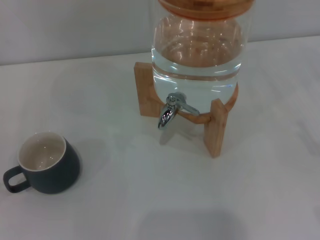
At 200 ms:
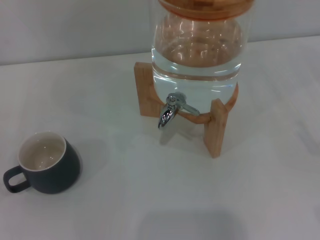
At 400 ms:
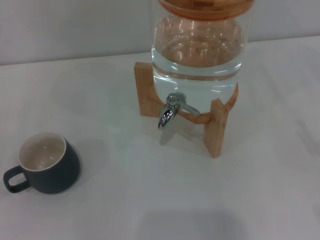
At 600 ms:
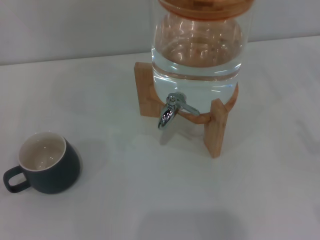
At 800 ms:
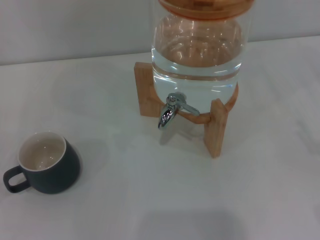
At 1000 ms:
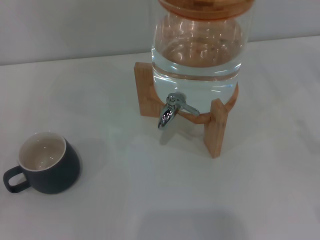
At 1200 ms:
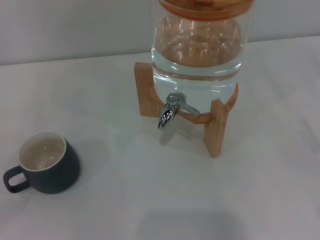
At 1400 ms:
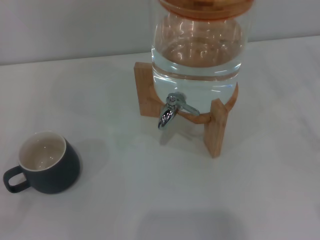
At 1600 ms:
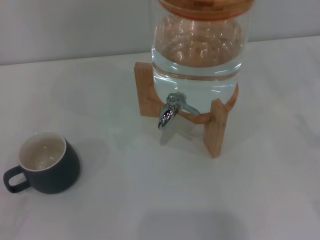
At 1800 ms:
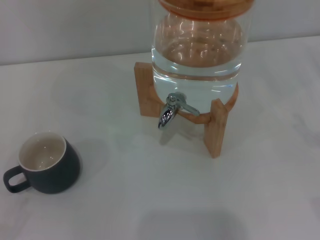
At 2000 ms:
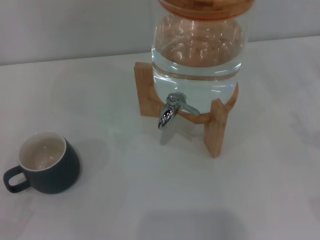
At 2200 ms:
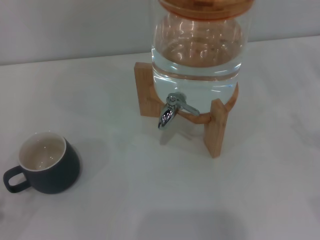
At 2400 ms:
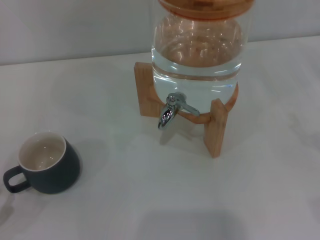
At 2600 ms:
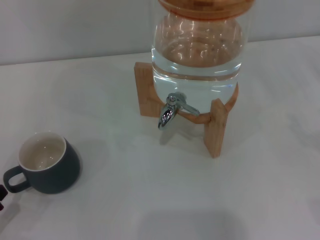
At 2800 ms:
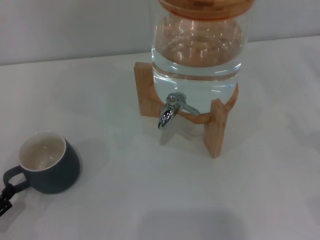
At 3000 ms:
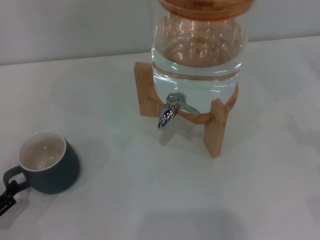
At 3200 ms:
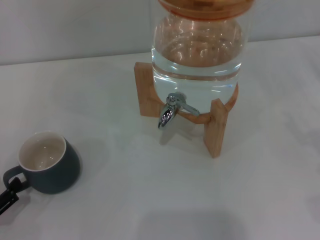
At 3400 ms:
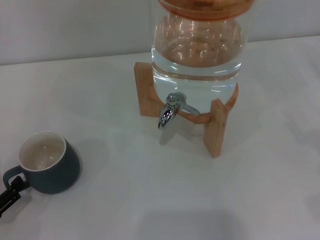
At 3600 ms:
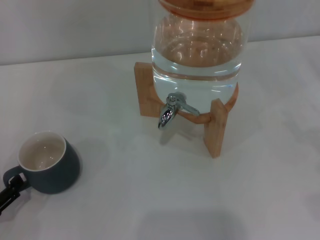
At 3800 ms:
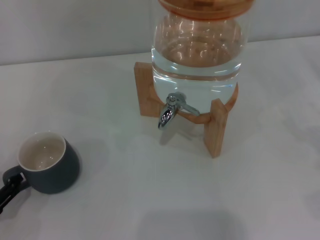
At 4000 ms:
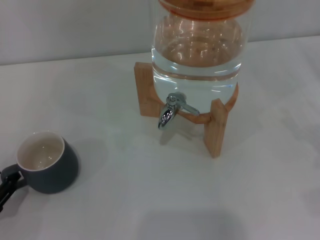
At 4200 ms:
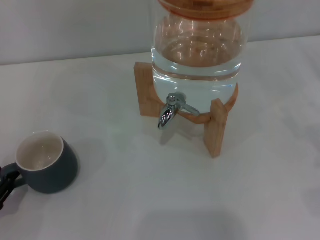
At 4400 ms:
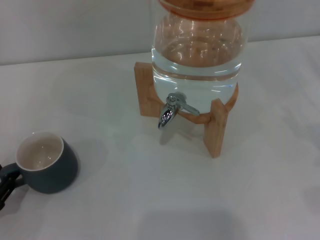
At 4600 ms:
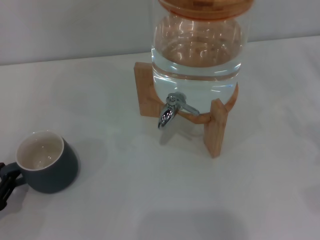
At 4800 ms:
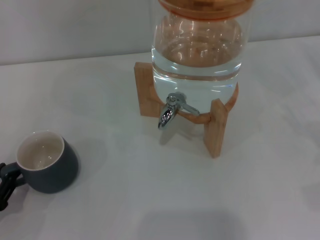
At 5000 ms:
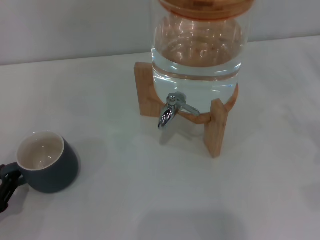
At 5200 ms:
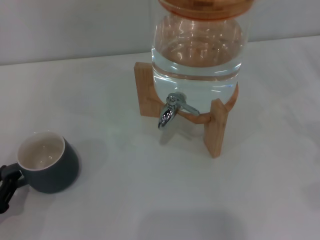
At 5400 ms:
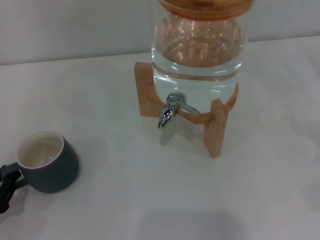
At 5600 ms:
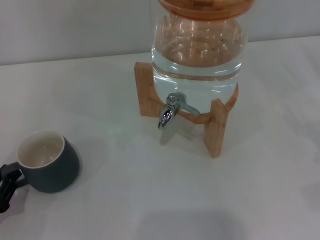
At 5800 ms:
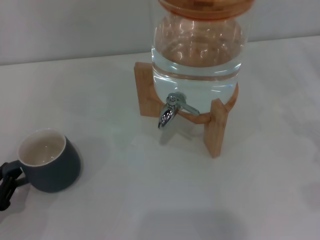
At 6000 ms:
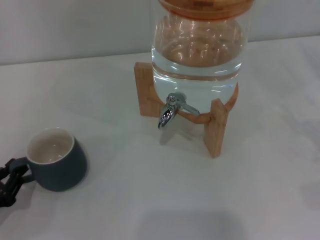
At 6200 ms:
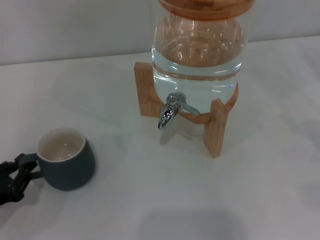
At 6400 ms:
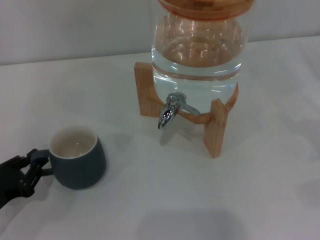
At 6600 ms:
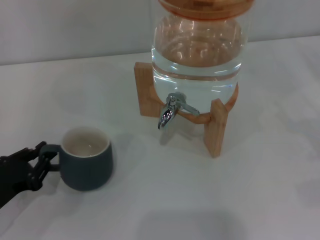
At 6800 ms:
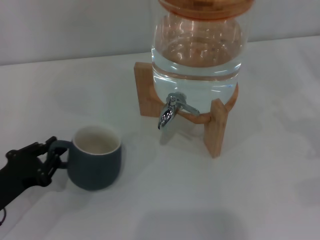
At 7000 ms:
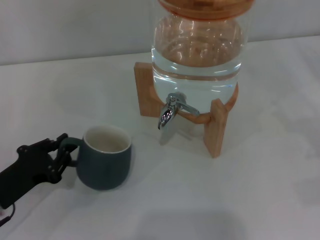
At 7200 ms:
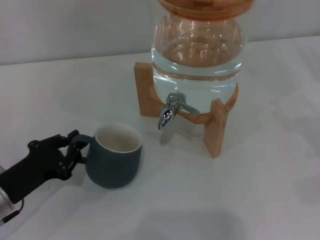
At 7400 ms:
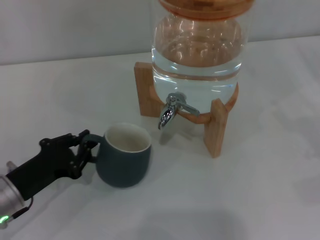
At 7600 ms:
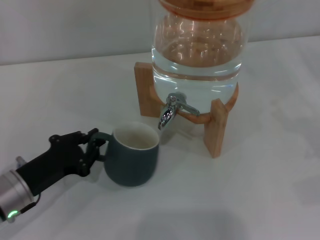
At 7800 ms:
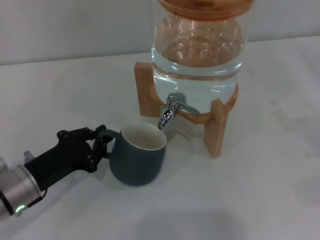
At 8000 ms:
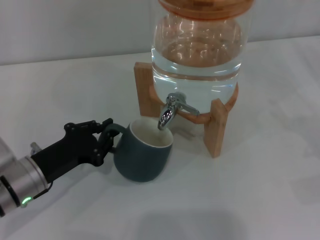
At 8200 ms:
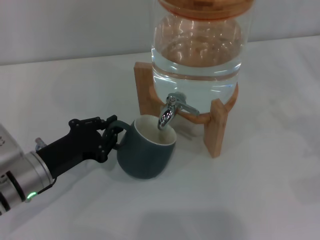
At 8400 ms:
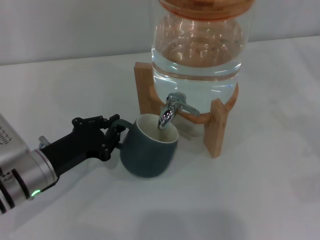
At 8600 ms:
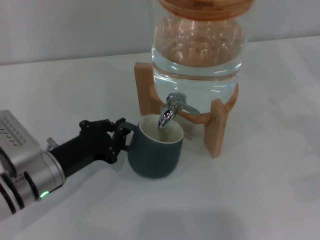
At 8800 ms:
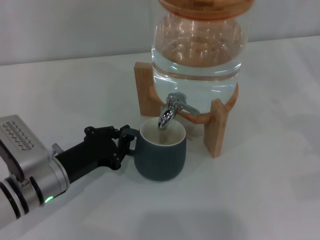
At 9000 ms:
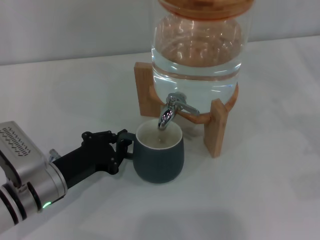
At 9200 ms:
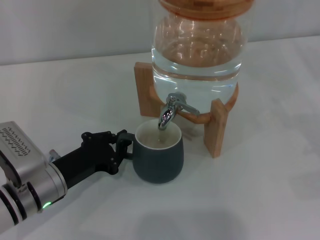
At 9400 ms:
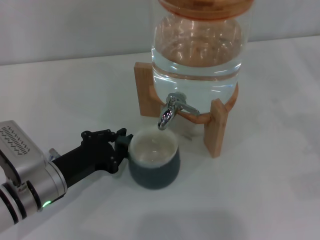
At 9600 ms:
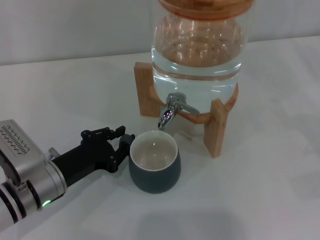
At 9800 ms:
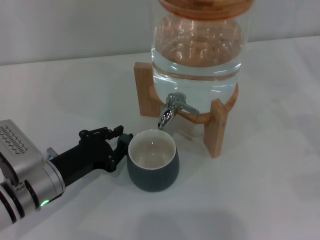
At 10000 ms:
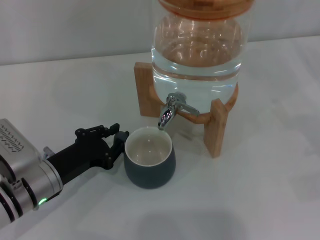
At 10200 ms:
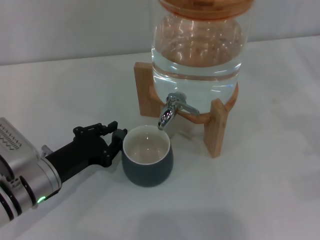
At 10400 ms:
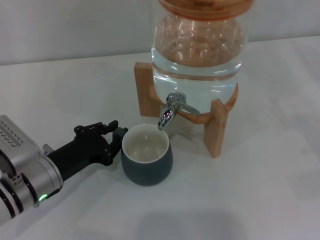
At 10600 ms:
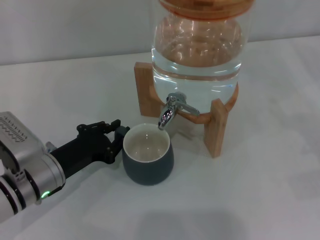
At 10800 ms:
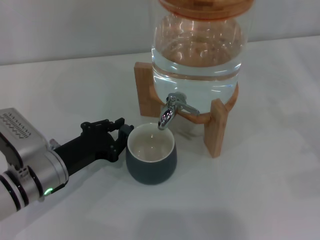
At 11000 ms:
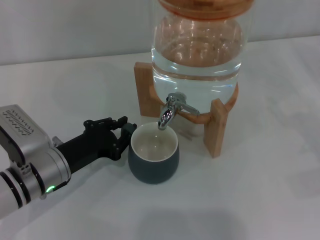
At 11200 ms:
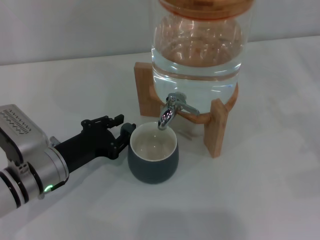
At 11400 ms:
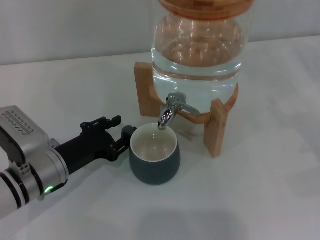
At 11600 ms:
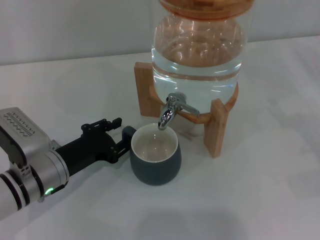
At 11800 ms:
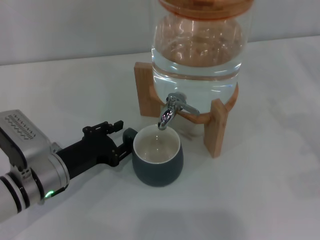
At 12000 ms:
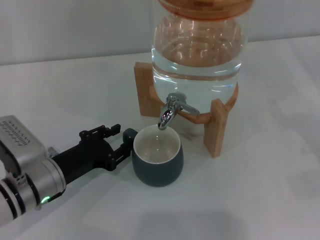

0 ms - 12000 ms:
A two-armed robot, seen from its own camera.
Task of the whole recording: the left gripper pick up the black cup and place it horizontally under the faucet, the right gripper turn on the faucet to fill the cup, and then turn off the faucet.
1600 ms - 3000 ms: The left gripper travels forward and to the right by some 10 cm.
3000 ms - 4400 ms: The left gripper closes.
4400 ms - 6000 ms: The grippers make only small movements.
6000 ms - 7600 ms: The left gripper heads to the right and forward, covering some 10 cm.
7600 ms - 9000 ms: There are only small adjustments of the grippers.
9000 ms - 10400 ms: Both grippers stay about where they are.
10400 ms - 12000 ms: The grippers make only small movements.

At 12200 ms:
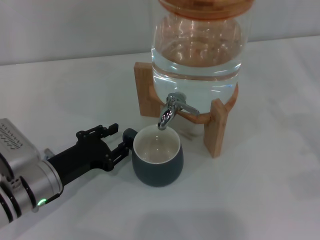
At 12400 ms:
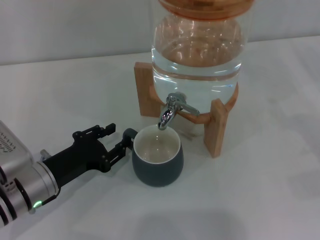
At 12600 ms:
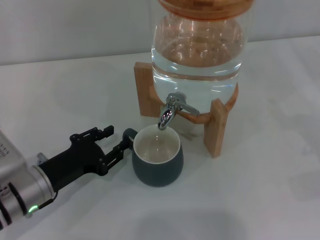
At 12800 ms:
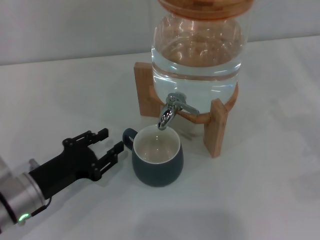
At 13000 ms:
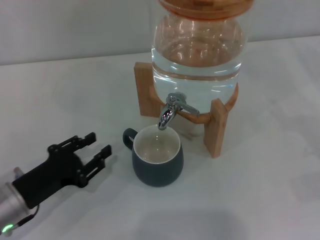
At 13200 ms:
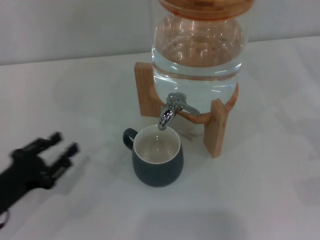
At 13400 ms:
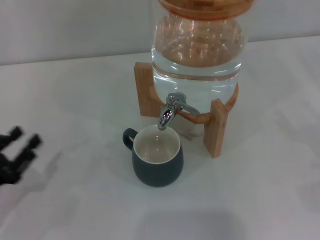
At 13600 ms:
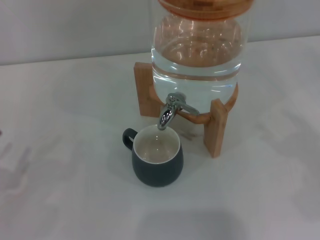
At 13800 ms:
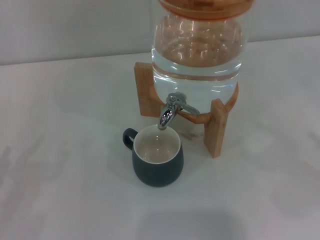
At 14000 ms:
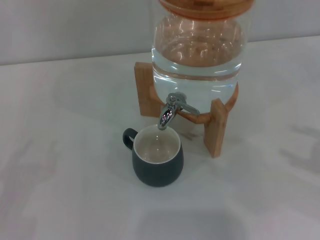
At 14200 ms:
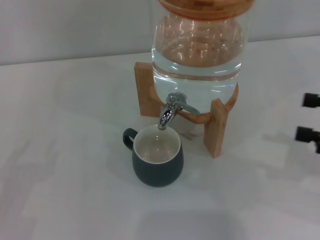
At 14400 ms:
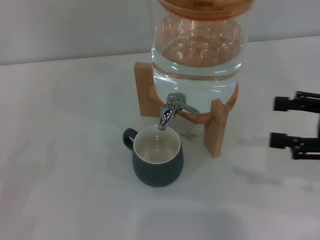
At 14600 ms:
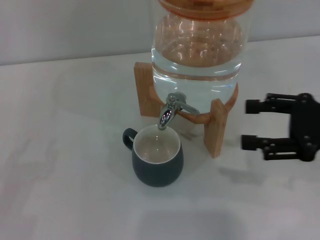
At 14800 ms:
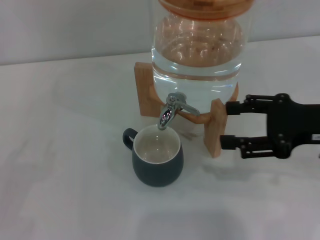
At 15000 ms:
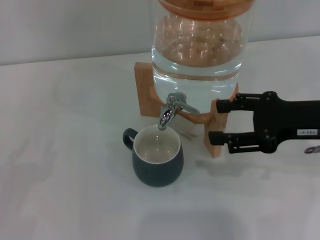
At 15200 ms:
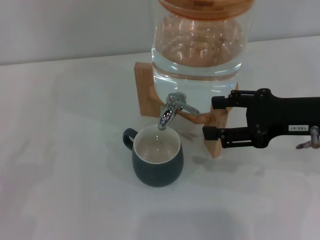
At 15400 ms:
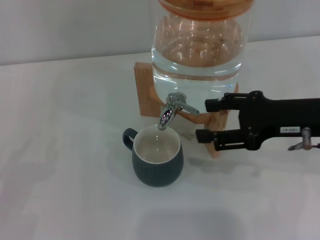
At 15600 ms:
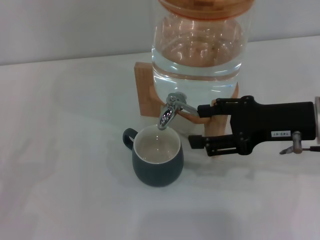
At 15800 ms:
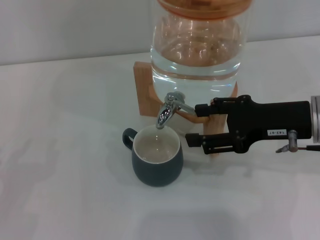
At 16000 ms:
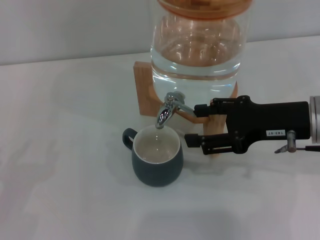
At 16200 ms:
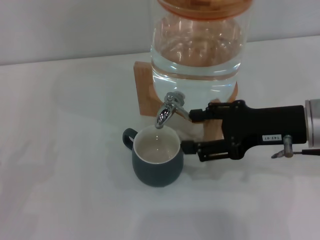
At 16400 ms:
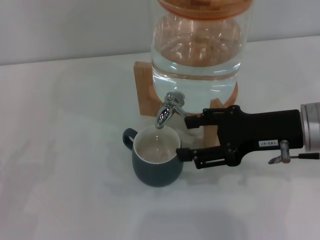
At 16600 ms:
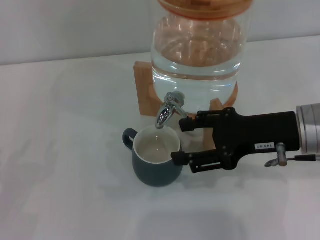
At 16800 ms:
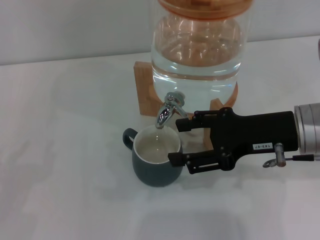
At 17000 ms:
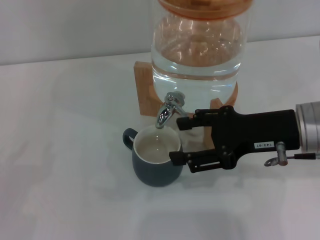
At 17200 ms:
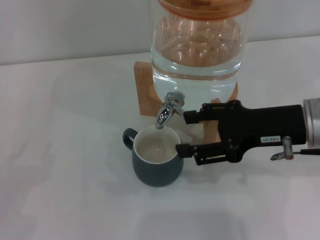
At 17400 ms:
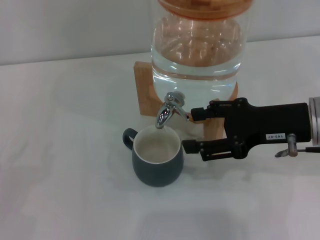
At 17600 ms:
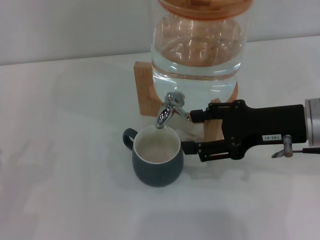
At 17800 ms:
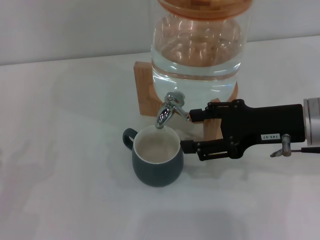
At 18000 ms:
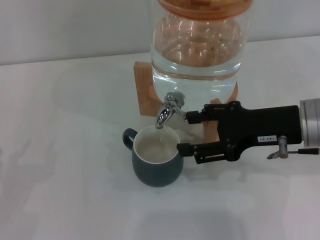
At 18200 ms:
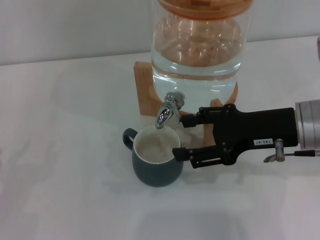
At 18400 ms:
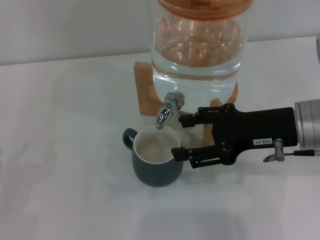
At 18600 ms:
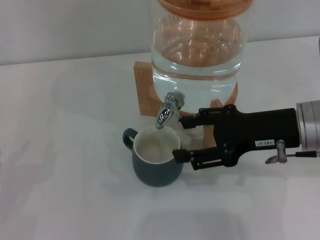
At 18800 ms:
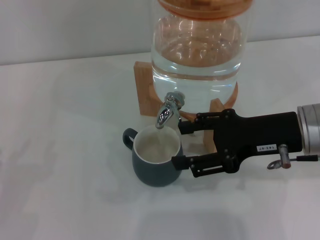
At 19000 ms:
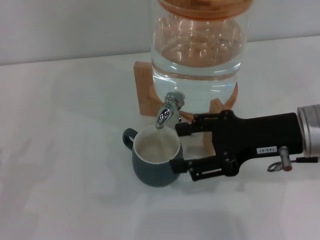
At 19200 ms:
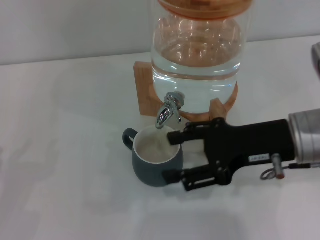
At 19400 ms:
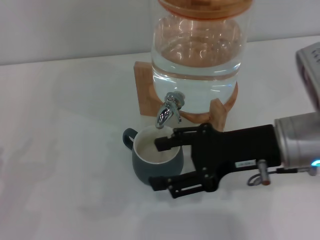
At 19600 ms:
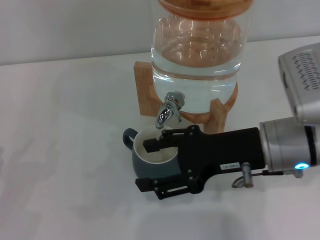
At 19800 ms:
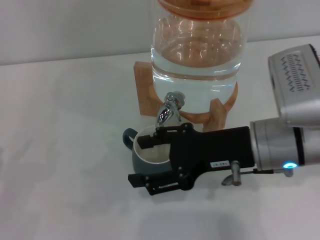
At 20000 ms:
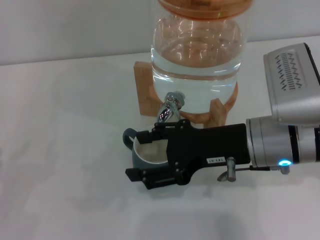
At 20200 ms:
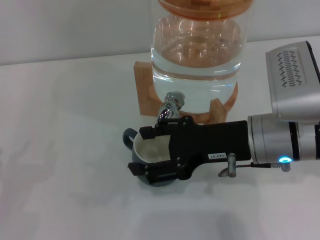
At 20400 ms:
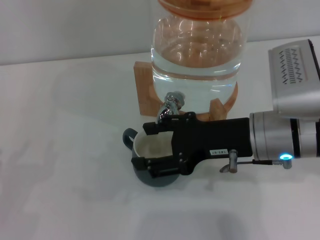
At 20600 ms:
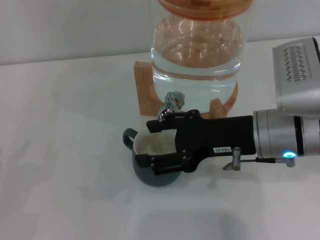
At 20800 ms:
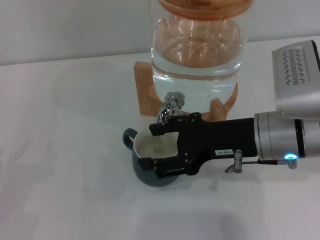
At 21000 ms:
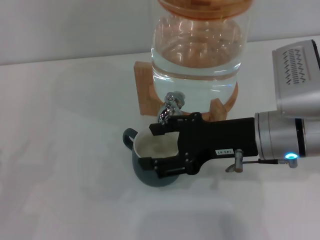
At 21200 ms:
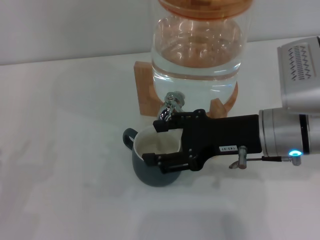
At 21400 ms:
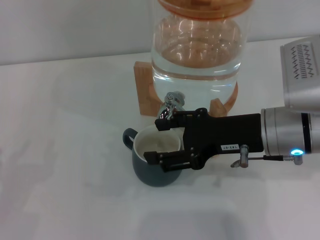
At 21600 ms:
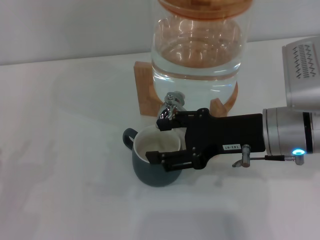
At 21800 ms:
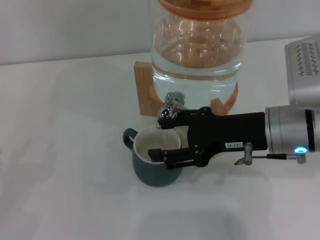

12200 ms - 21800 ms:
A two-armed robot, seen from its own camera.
Task of the whole recording: the left gripper pick up the black cup and place it horizontally under the faucet, the right gripper turn on the faucet to fill the cup, and then turn off the faucet.
Step, 13000 ms - 18800 ms: Open the dispenser valve and fill the cup with water with the right gripper.
12200 ms - 13800 ms: The left gripper heads to the left and backward, covering roughly 20 cm. Meanwhile the right gripper is displaced upward by approximately 5 cm.
13800 ms - 15400 ms: The right gripper shifts about 20 cm to the left and forward.
15400 ms - 18600 ms: The grippers make only small movements.
18600 ms - 20200 ms: The right gripper goes approximately 5 cm to the left.
20200 ms - 21800 ms: The grippers move only a little.
